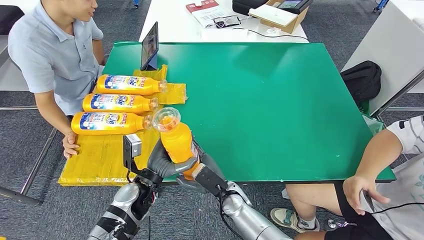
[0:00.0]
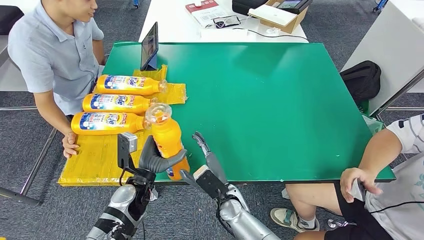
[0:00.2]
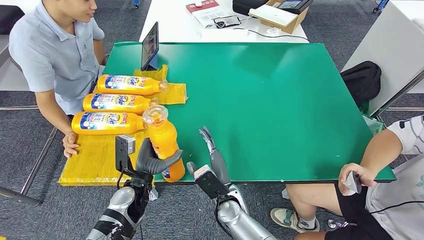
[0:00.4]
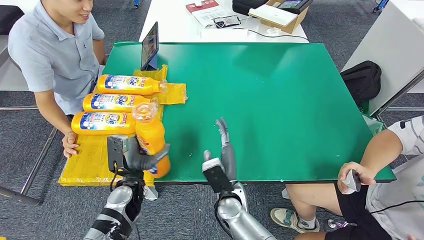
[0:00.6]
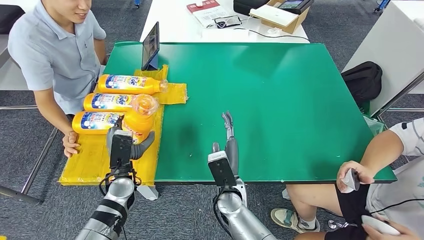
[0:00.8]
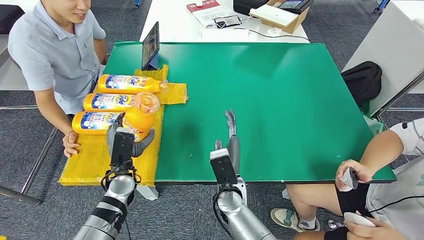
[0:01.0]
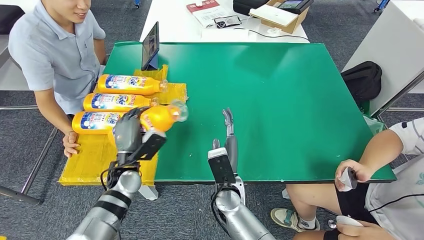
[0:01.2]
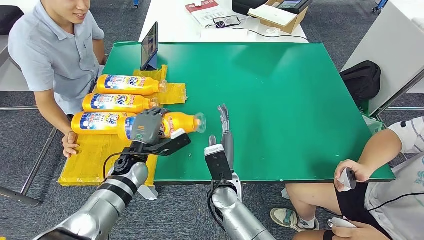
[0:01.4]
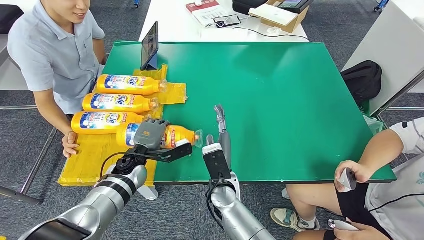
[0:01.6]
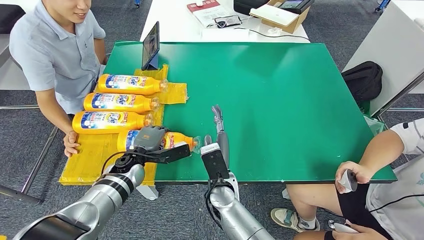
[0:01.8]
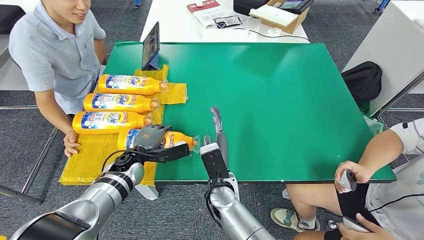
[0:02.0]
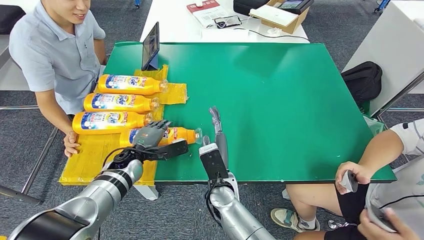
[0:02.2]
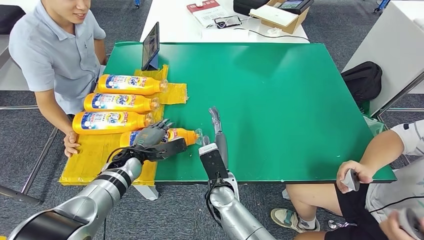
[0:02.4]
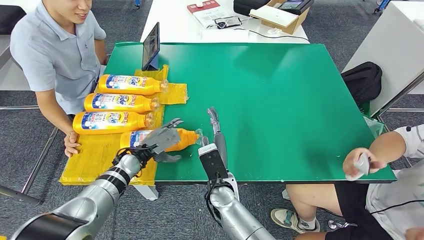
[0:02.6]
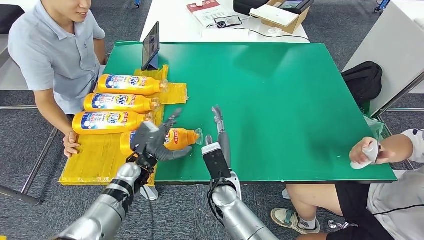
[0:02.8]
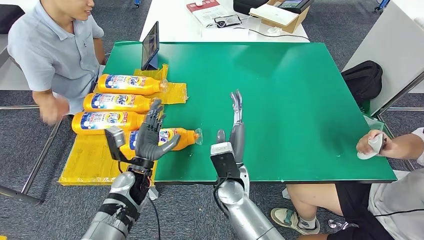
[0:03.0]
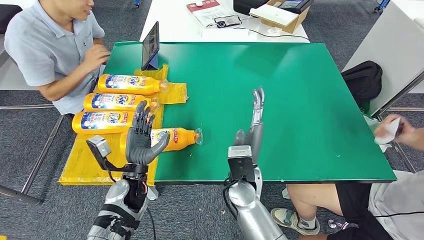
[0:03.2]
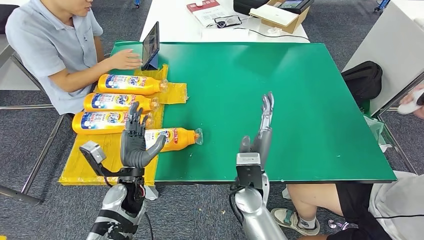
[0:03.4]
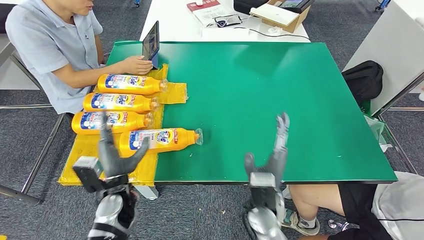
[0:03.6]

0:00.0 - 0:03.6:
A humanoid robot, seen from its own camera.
Step, 0:00.0 - 0:03.6: Flip the bottle to face forward.
